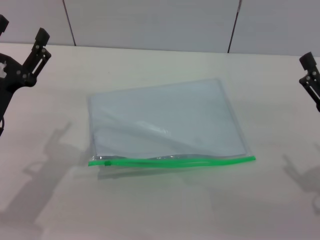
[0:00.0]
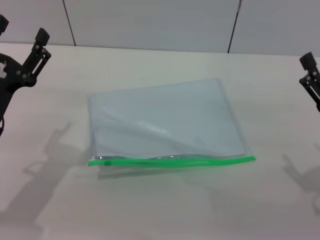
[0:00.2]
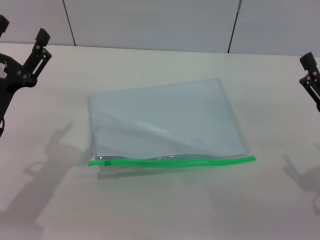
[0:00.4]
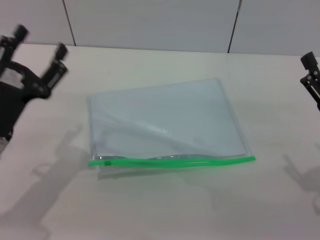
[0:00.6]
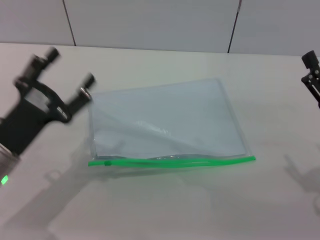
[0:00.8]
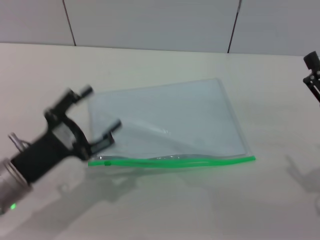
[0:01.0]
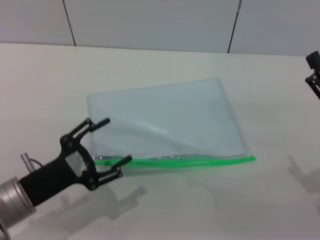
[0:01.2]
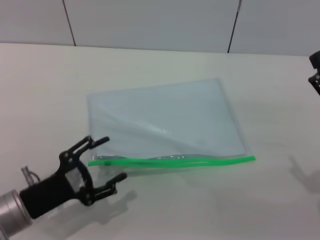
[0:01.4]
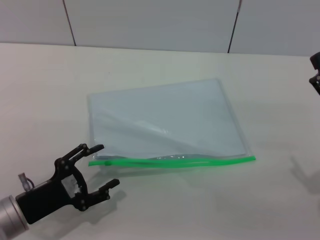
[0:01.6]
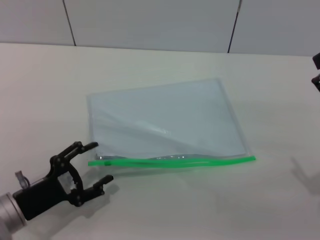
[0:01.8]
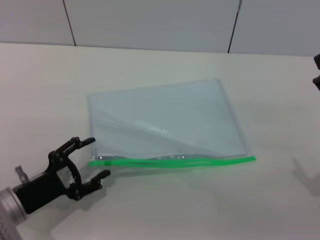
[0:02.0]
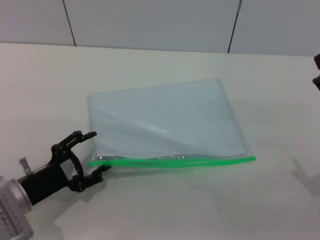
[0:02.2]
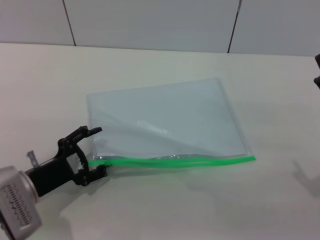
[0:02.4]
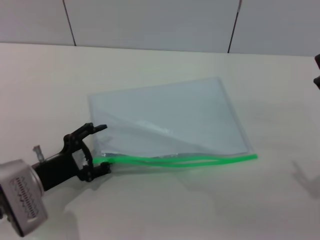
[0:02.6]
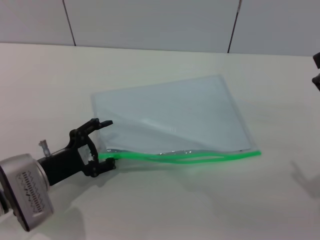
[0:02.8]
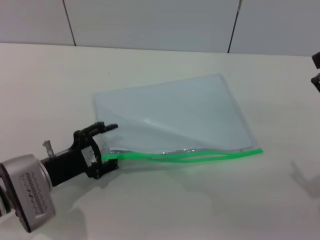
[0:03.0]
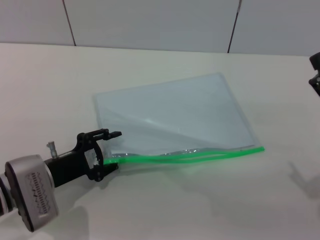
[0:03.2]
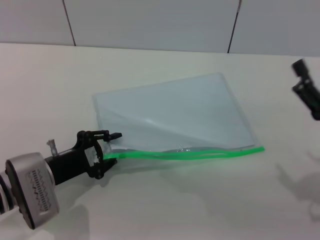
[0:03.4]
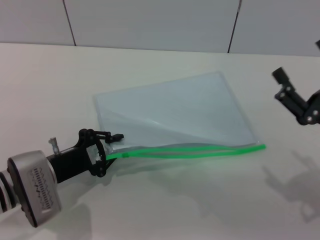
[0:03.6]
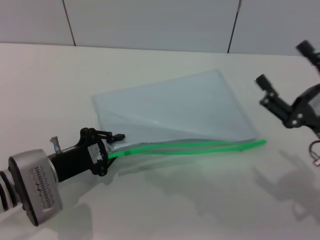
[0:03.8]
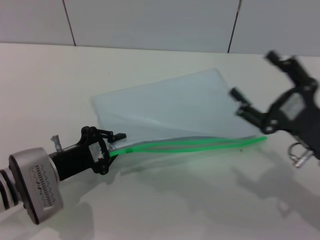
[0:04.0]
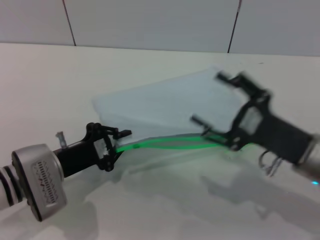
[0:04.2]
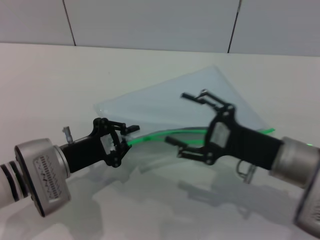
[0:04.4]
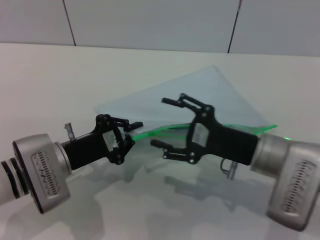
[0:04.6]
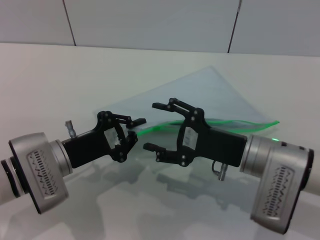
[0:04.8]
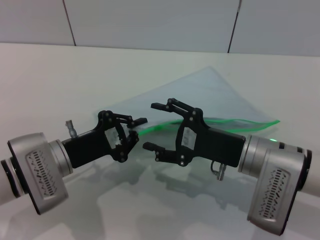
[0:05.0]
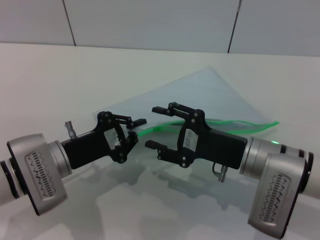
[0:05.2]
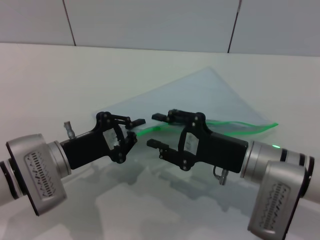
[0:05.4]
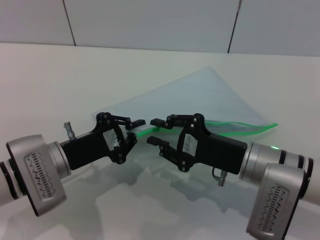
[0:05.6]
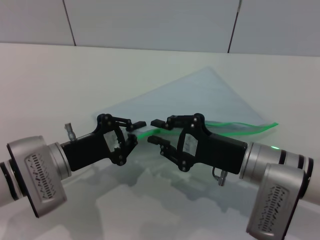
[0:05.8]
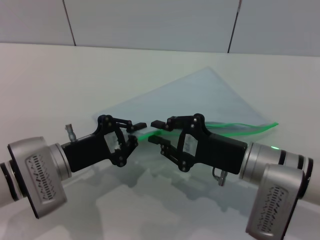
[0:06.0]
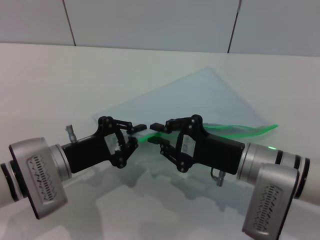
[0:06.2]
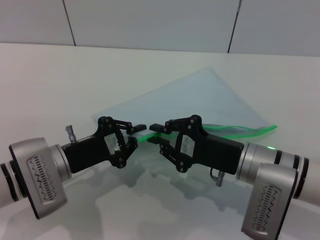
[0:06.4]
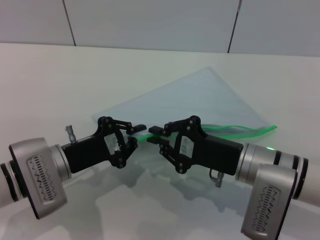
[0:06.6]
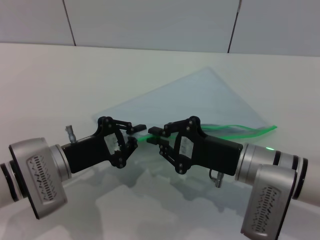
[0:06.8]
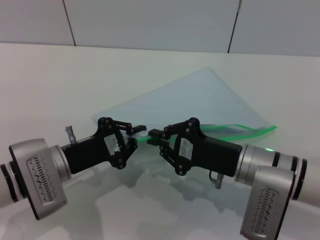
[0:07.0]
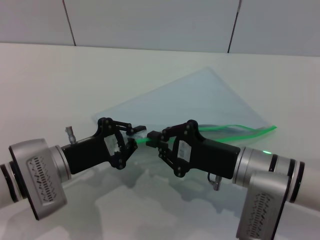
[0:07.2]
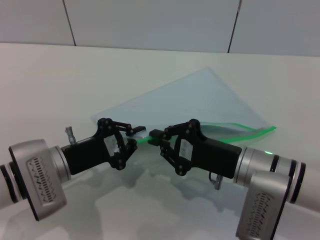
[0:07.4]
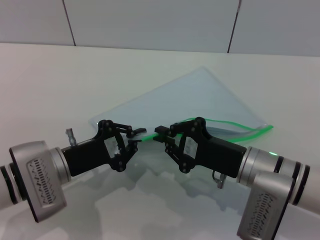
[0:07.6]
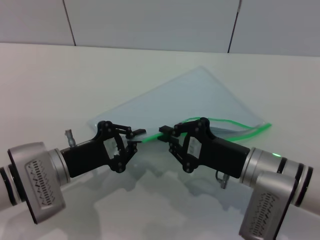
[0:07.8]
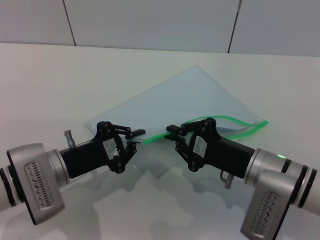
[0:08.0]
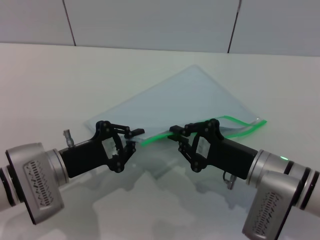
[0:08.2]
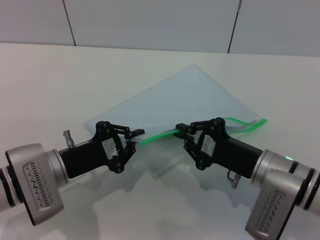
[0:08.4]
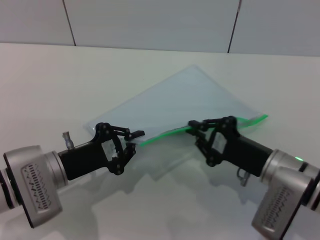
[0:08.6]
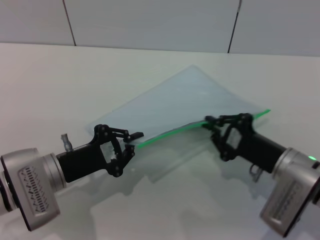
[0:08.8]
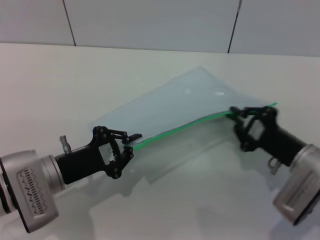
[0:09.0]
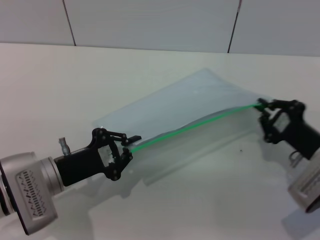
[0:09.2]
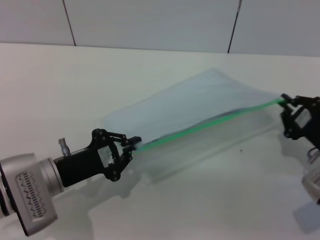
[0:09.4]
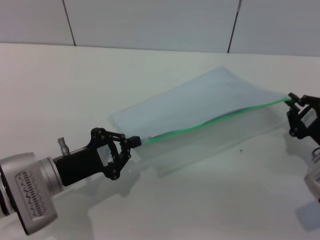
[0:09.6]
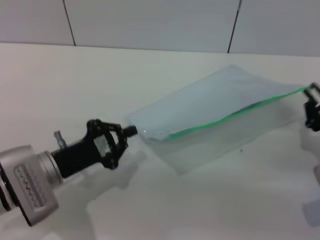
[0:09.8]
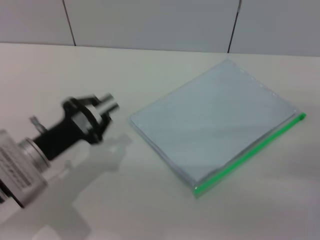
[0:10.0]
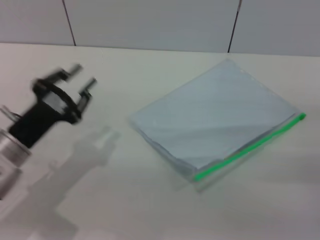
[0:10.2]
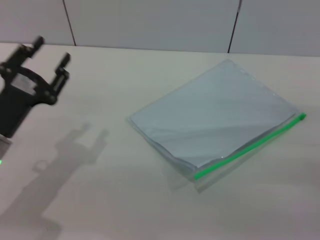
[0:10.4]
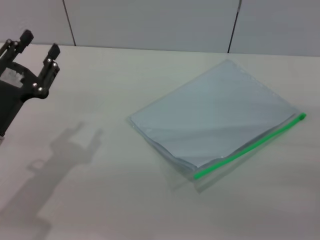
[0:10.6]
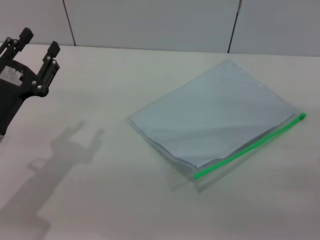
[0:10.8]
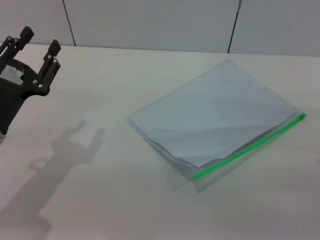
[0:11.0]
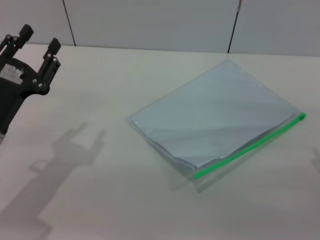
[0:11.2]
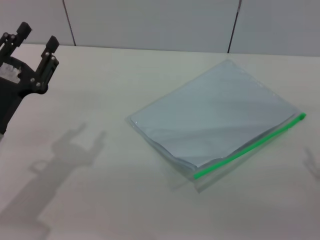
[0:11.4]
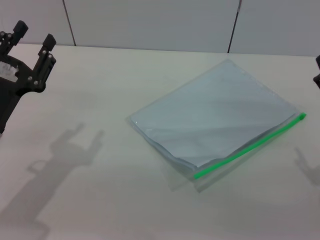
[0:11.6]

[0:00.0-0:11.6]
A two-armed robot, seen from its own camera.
Step, 0:00.0 to 0:04.0: Pick up the transparent plastic bag with the left gripper.
Step, 0:04.2 to 0:10.0: Pulling up the zipper on the transparent plastic bag with the right gripper to close it.
Step, 0:10.2 to 0:10.6: Place the transparent plastic bag.
0:00.0 to 0:01.4: The left gripper travels downward and backward by some 10 cm.
0:01.4 to 0:02.8: The left gripper is displaced forward by roughly 5 cm.
0:02.8 to 0:04.4: The right gripper is displaced to the left by about 10 cm; the left gripper closes its fingers.
0:04.4 to 0:05.8: The right gripper closes up.
0:05.8 to 0:07.2: Both grippers stay about where they are.
0:07.2 to 0:08.8: The right gripper travels to the right by roughly 5 cm.
0:08.8 to 0:10.2: The right gripper travels to the right by about 10 cm.
0:10.2 to 0:11.6: The left gripper opens.
